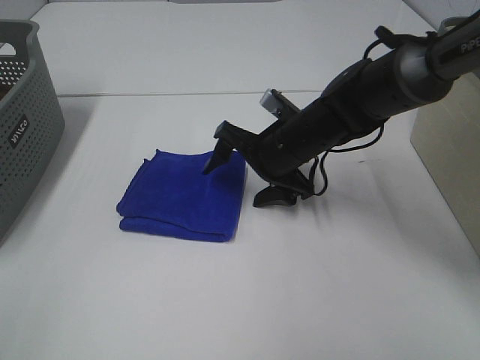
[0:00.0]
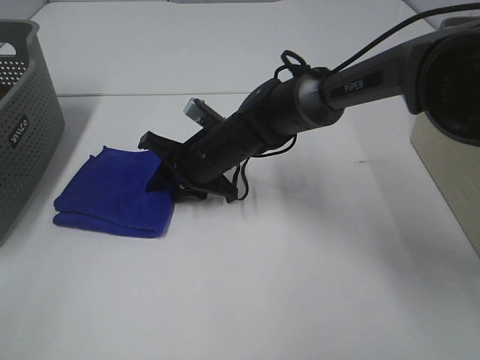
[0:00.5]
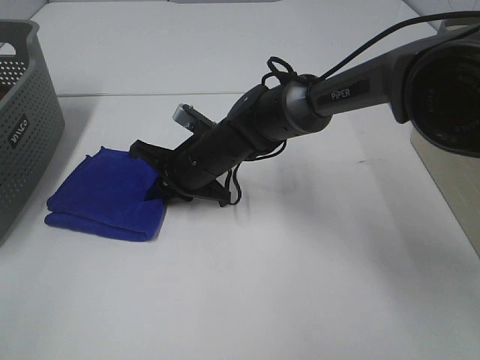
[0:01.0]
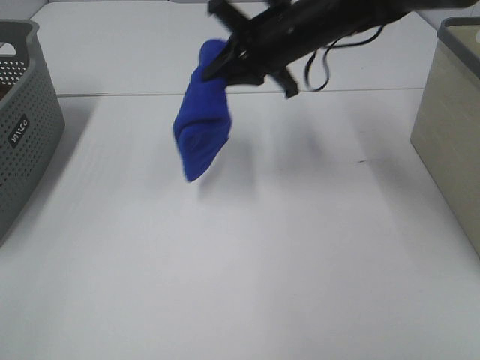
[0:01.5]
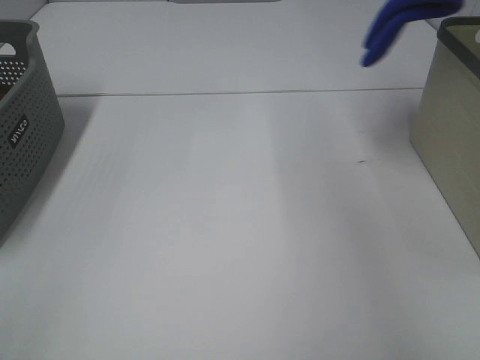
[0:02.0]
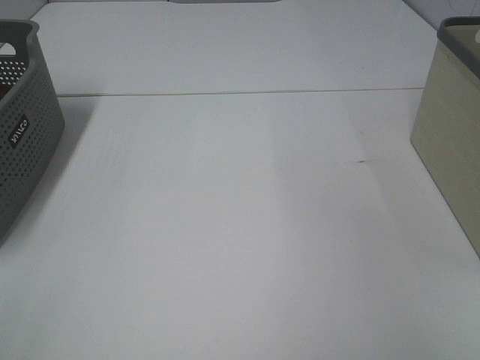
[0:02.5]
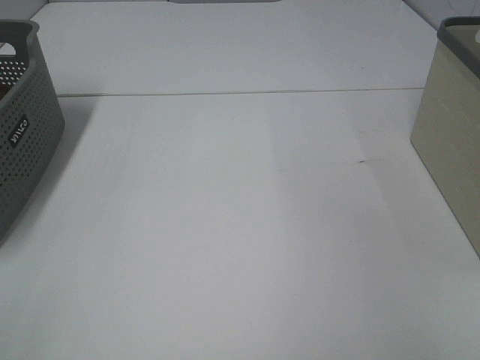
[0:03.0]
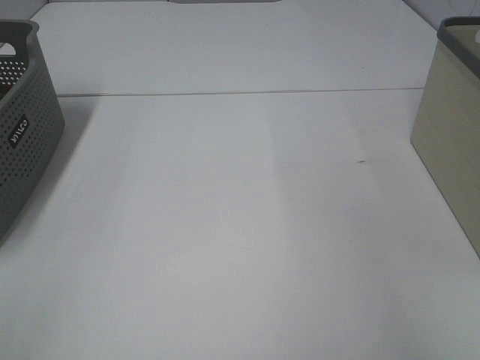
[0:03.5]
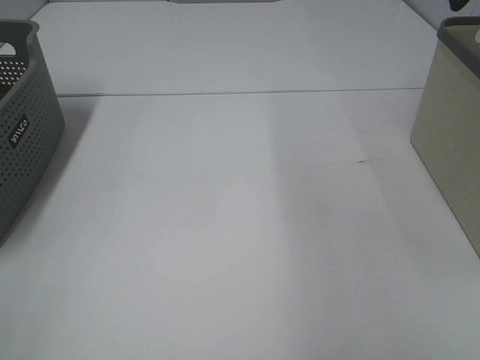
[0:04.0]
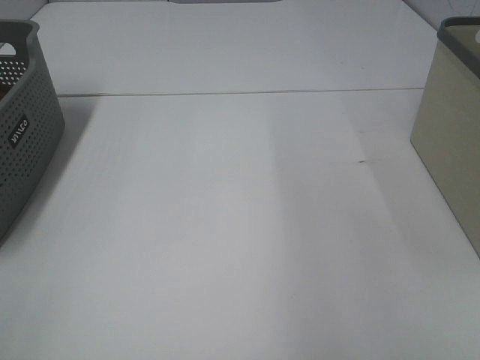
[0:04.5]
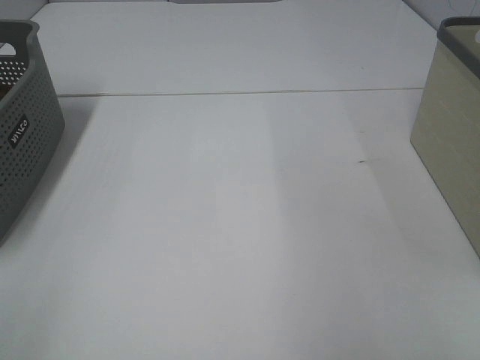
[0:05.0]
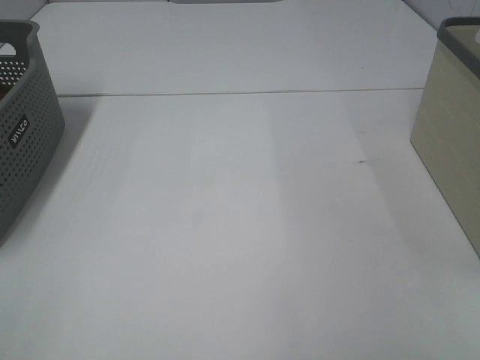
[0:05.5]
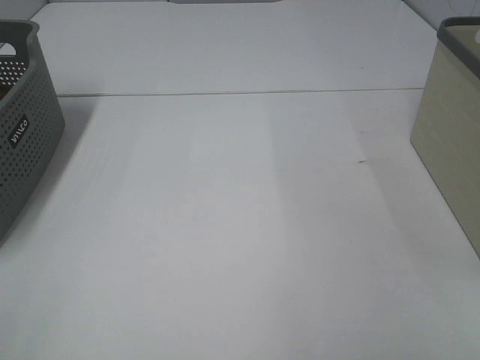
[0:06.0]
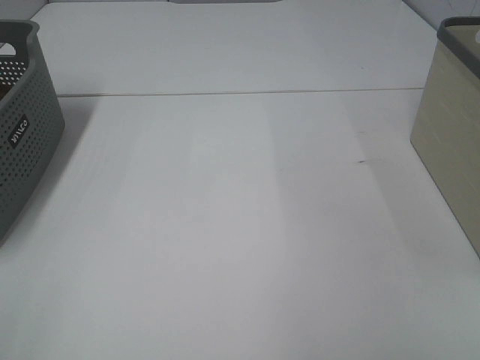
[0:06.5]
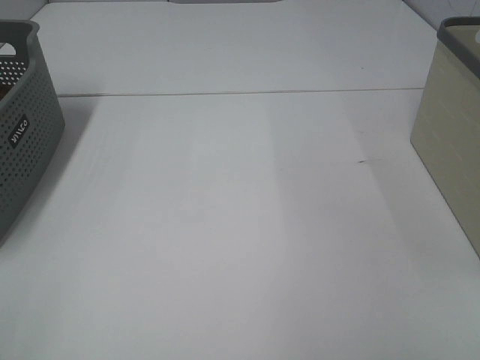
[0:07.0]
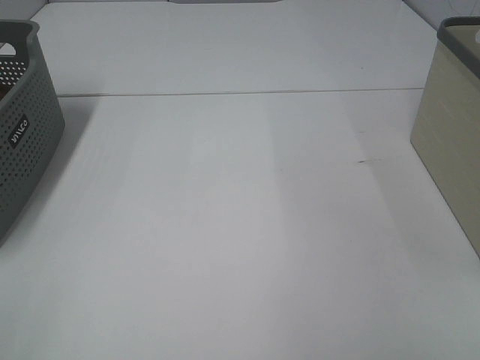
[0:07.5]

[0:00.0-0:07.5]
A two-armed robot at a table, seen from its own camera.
Step, 0:01.0 to 0:03.0: Right hand: place the blue towel in right basket.
0:00.0 to 0:02.0: The right gripper travels upward and to the right by roughly 35 cm, and closes up.
0:02.0 to 0:04.0: The right gripper goes roughly 5 cm backward, travels to the right and back again, some 15 cm each way, and opens its fingers.

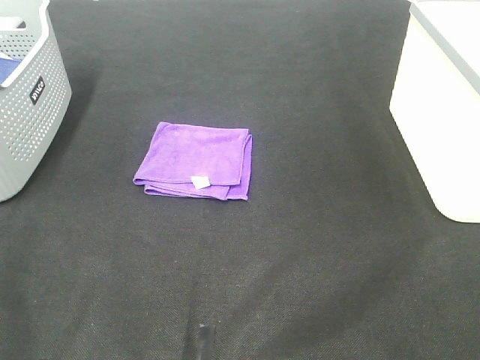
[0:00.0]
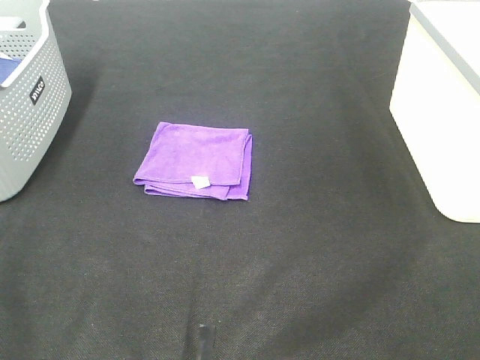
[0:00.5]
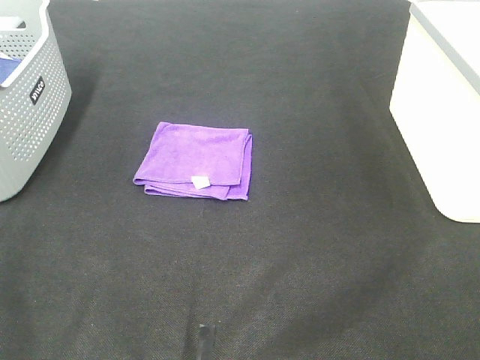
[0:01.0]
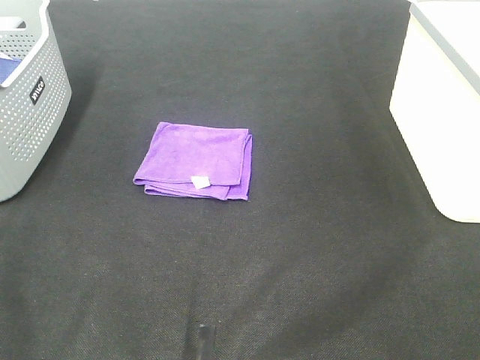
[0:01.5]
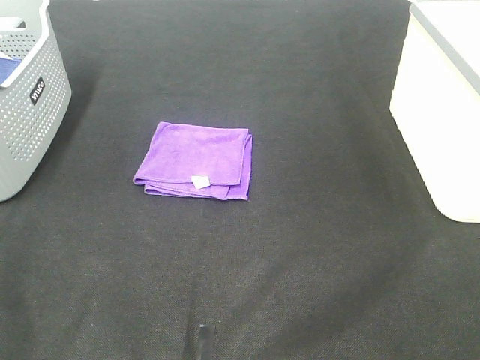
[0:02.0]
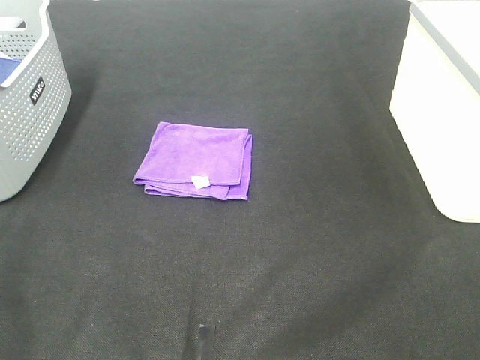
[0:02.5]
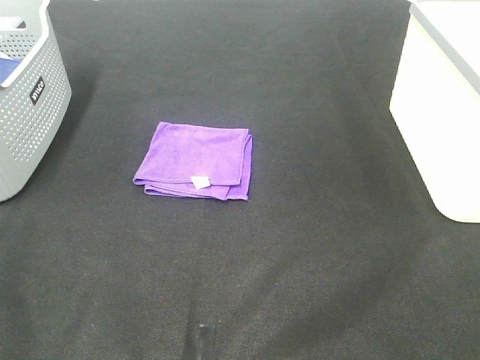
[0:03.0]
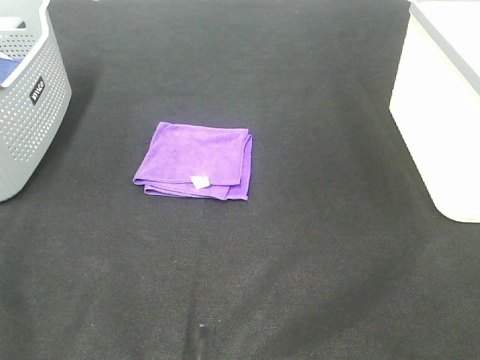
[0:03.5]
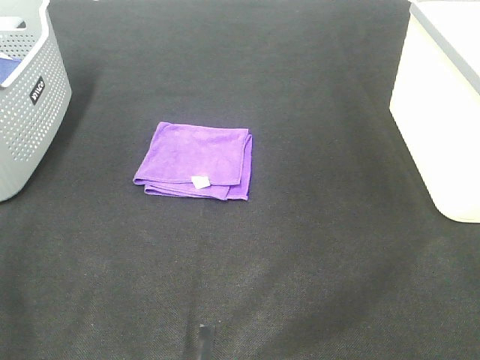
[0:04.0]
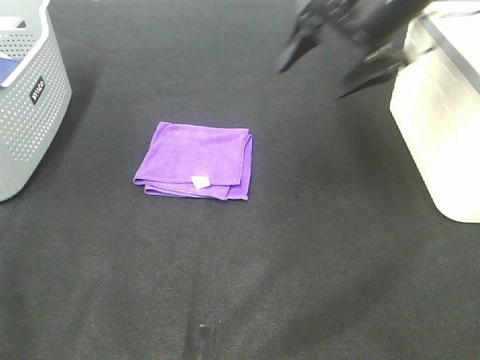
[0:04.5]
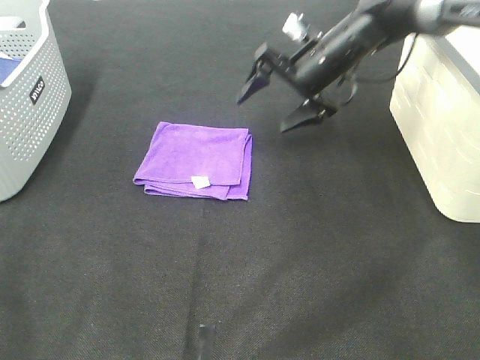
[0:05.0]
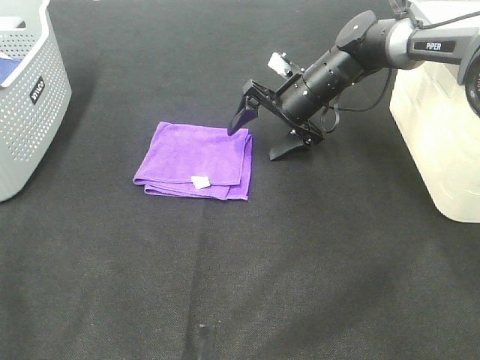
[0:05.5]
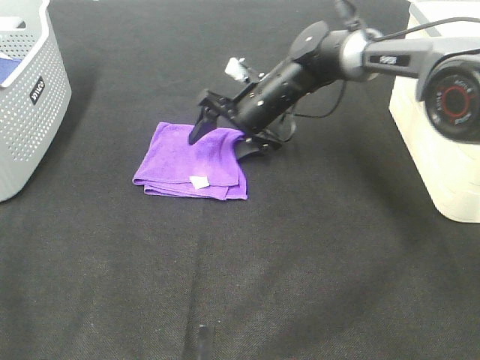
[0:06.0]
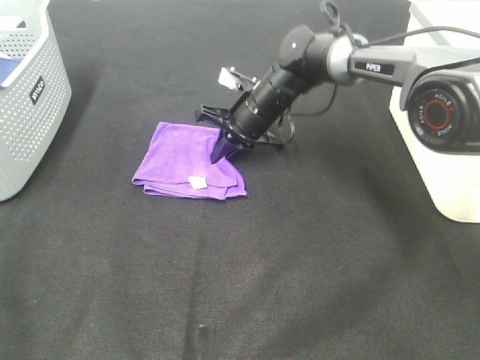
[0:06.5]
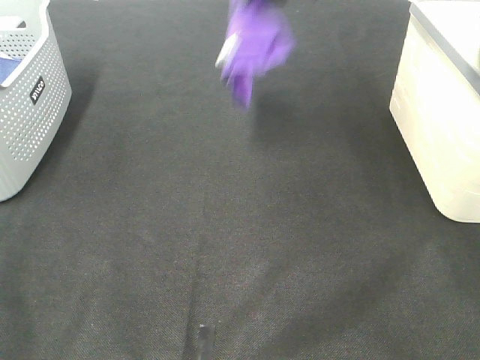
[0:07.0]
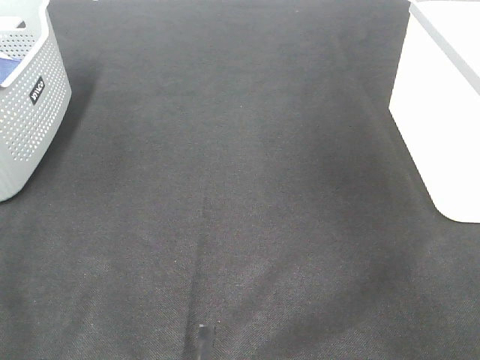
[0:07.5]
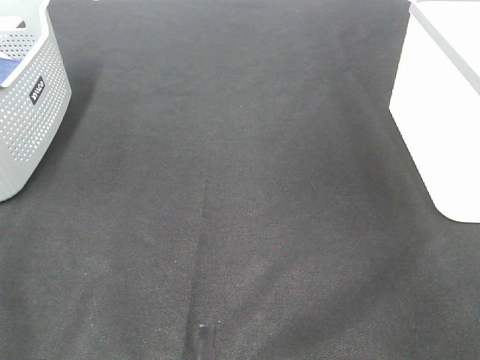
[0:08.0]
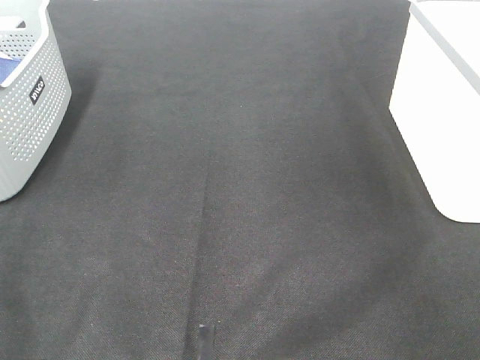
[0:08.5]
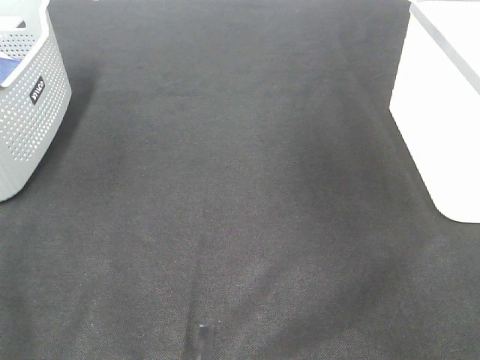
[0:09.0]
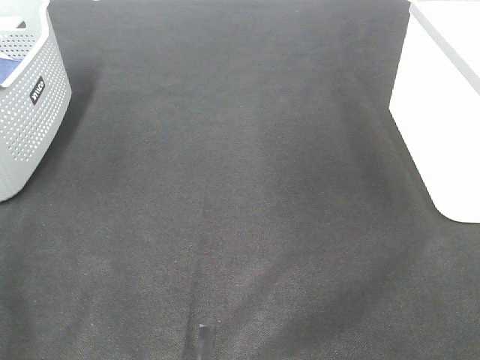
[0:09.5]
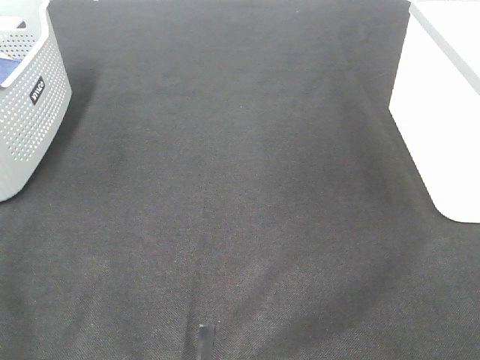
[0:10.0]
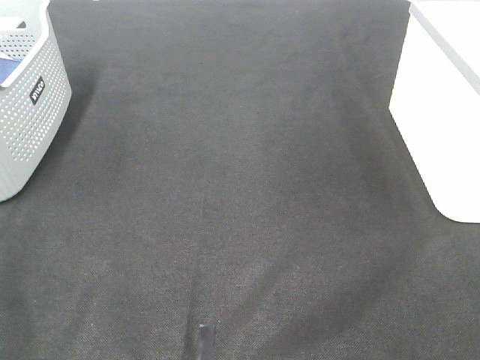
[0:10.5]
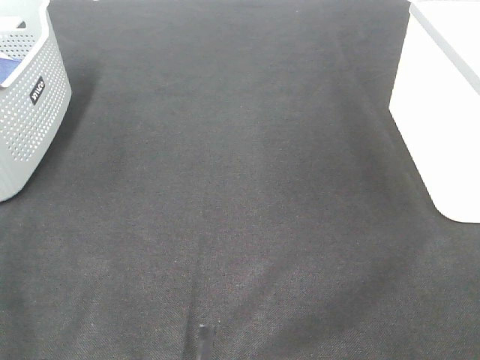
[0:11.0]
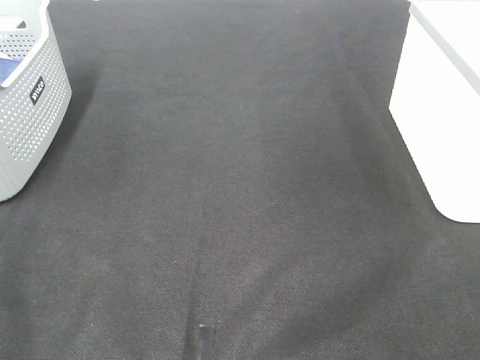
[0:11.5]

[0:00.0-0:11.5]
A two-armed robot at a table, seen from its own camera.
Step, 0:00.0 to 0:06.0: Right hand: grab the folded purple towel.
Step, 0:06.5 to 0:08.0: Right hand: place the purple towel in right basket.
0:00.0 to 0:02.0: Neither gripper changes place.
0:04.0 to 0:06.0: The right gripper travels downward, forward and to the left by about 50 cm.
0:06.0 to 0:07.5: The right gripper is displaced upward and to the right by some 50 cm, and closes its fingers.

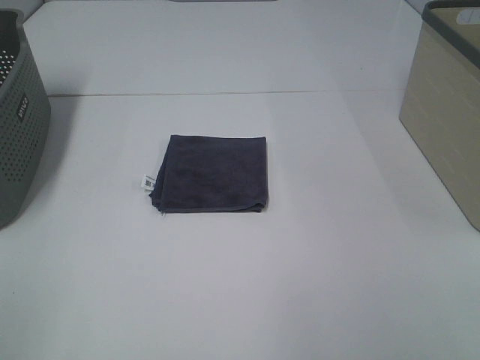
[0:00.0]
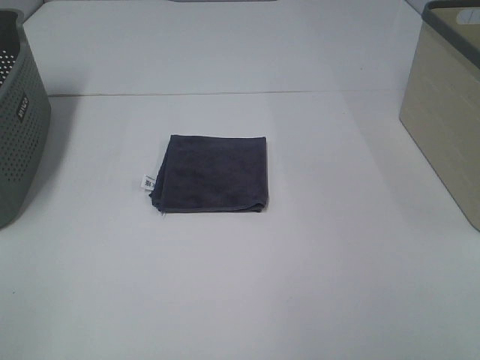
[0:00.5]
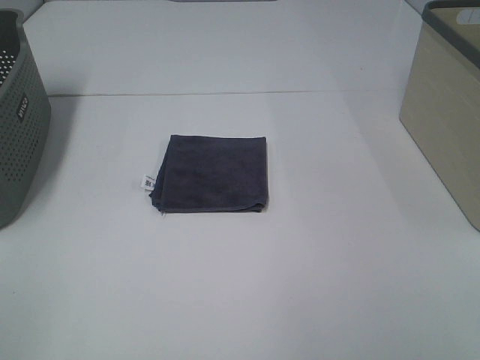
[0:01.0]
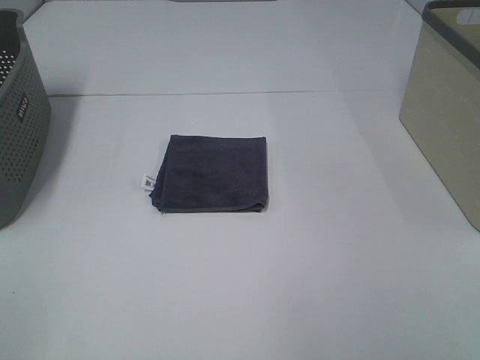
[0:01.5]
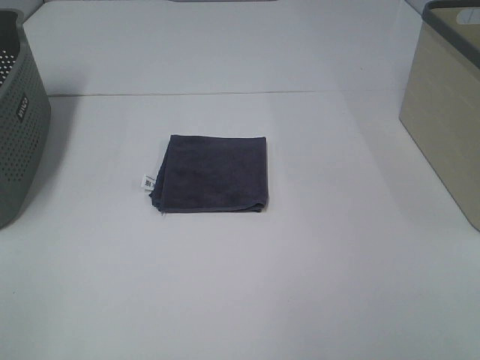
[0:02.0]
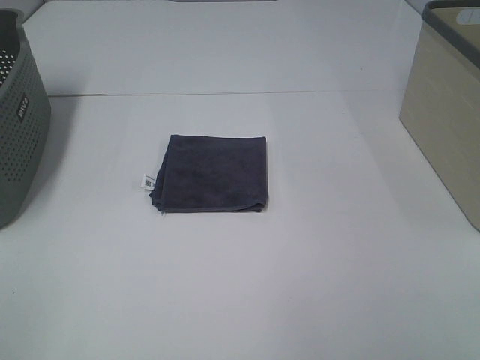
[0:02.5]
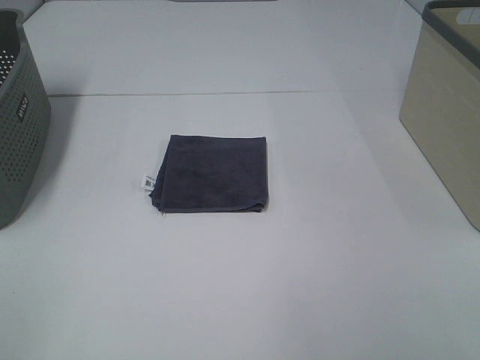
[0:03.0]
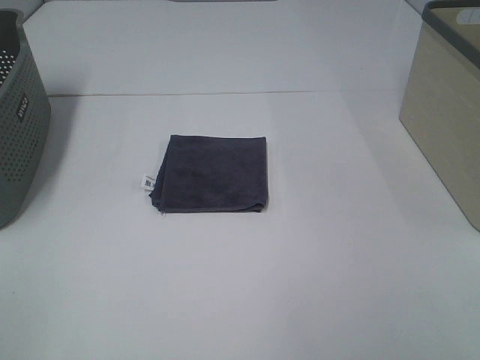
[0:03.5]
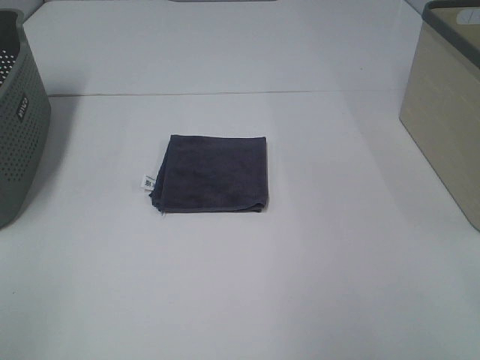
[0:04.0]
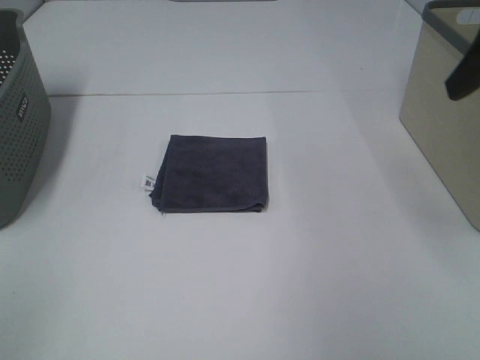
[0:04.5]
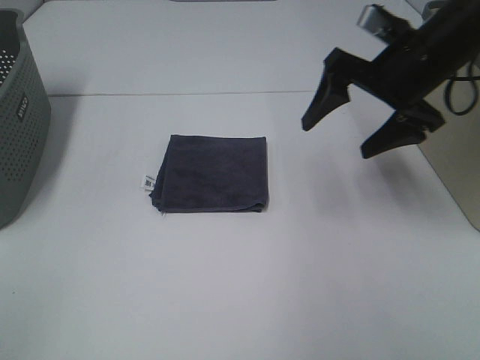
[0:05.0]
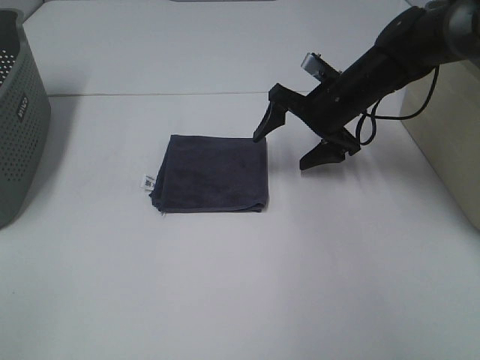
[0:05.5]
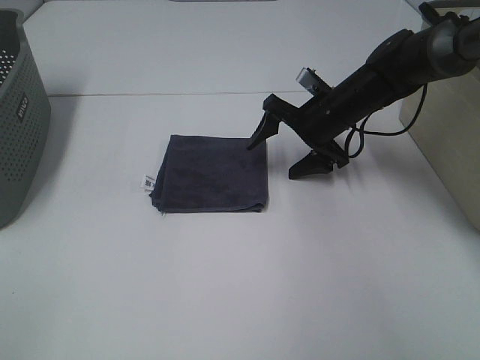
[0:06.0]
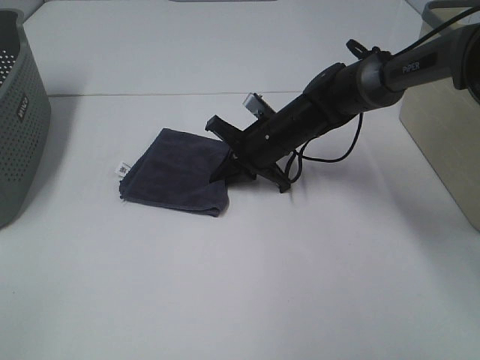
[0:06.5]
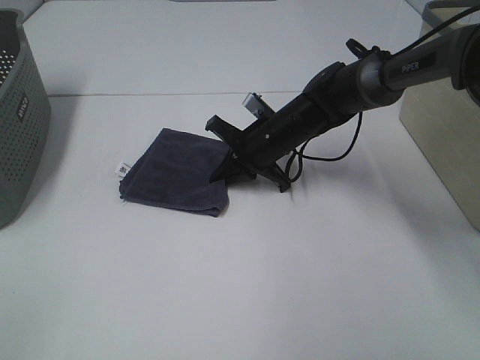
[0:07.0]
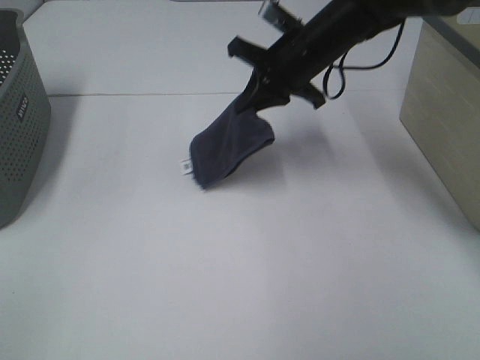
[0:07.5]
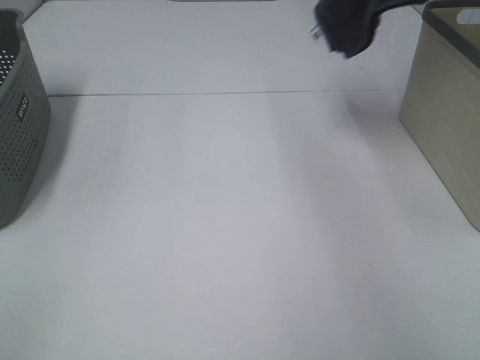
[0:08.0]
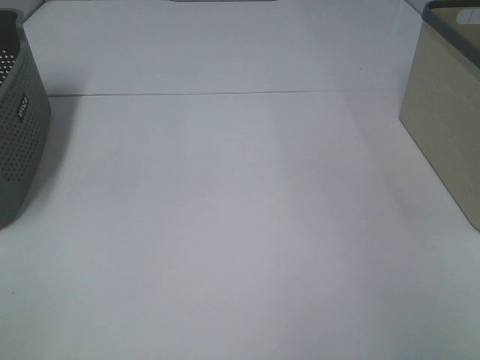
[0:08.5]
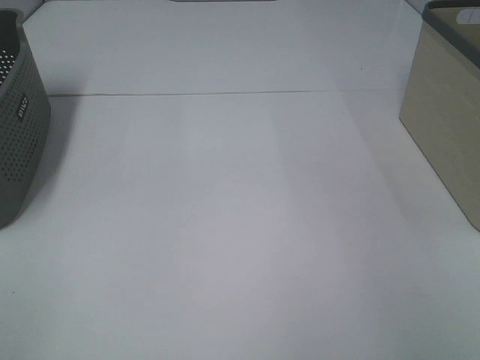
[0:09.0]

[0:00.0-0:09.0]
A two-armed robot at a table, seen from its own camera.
Step, 0:00.0 to 0:06.5: Right hand: grab the folded grey towel.
0:00.0 to 0:02.0: Both grippers stay about where they are.
0:02.0 to 0:04.5: The right gripper is displaced forward by roughly 25 cm.
0:04.5 to 0:07.0: The right gripper travels downward, to the left and forward by some 40 cm, and closes.
0:07.0 to 0:09.0: The right gripper shifts about 50 cm to the right and upward, and opens its fingers.
